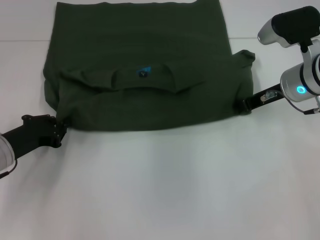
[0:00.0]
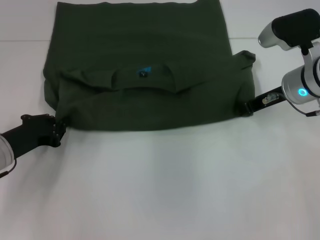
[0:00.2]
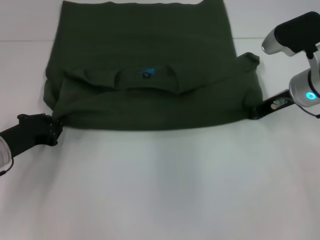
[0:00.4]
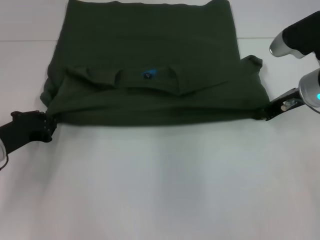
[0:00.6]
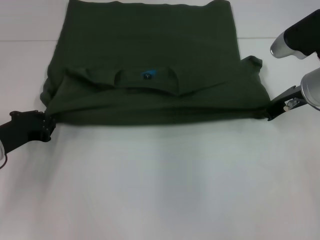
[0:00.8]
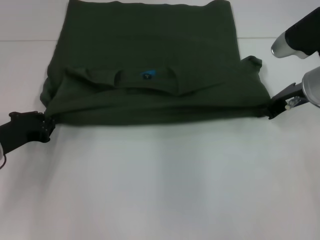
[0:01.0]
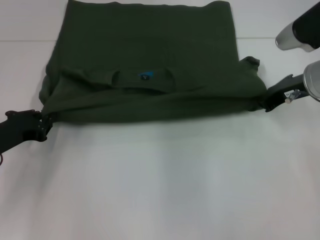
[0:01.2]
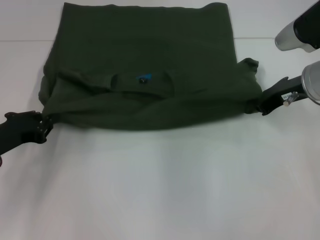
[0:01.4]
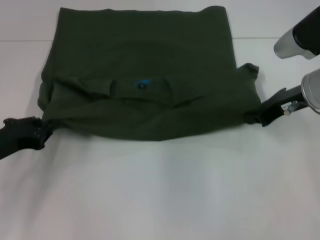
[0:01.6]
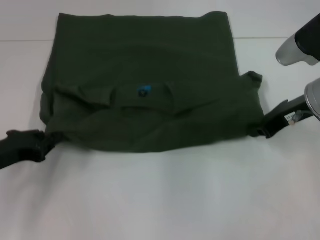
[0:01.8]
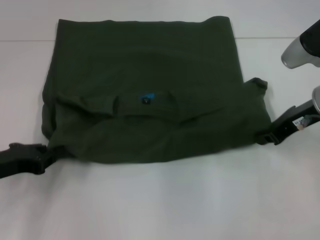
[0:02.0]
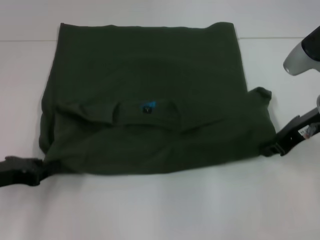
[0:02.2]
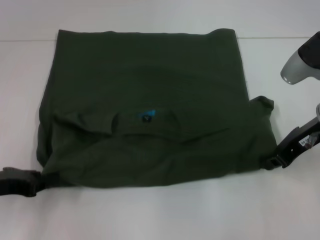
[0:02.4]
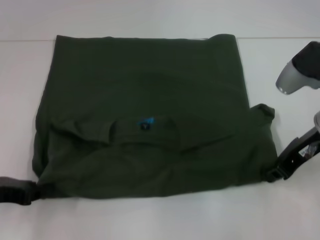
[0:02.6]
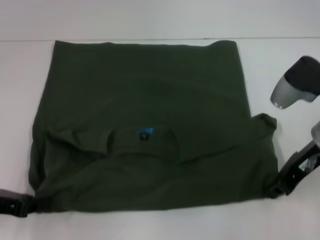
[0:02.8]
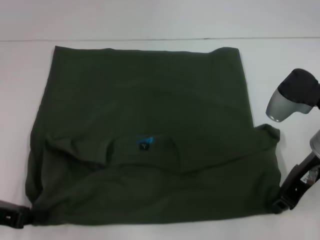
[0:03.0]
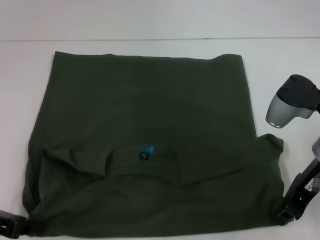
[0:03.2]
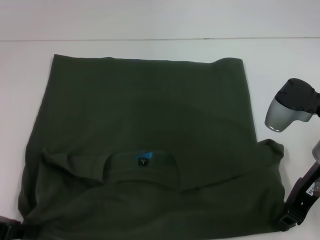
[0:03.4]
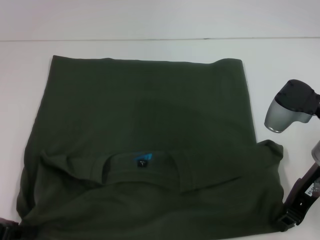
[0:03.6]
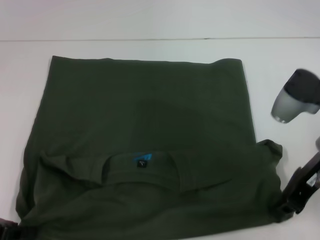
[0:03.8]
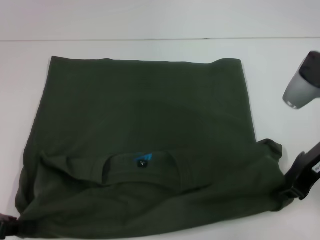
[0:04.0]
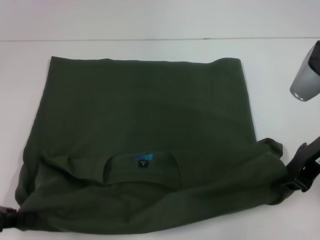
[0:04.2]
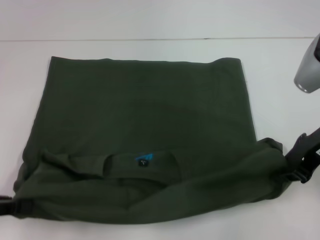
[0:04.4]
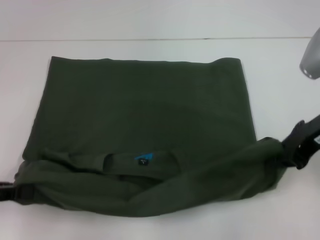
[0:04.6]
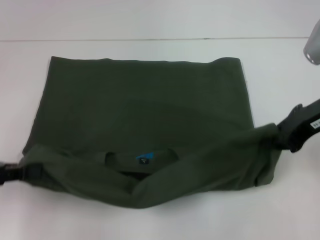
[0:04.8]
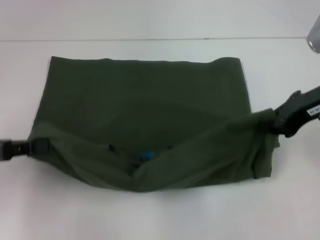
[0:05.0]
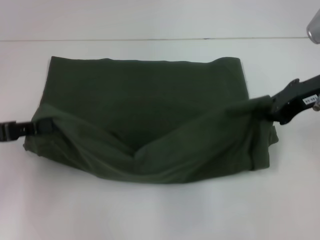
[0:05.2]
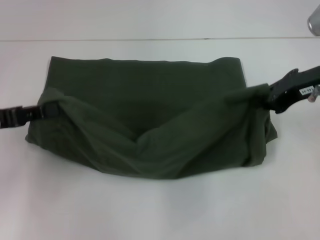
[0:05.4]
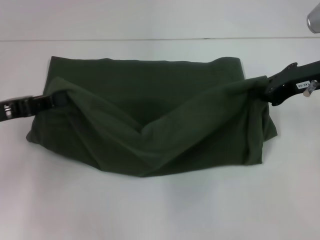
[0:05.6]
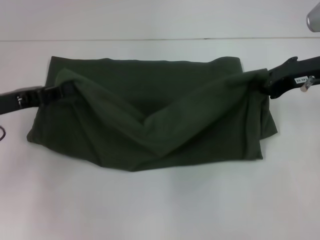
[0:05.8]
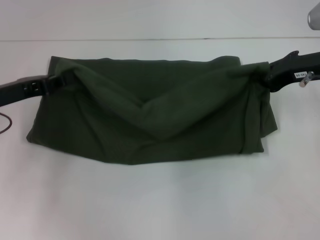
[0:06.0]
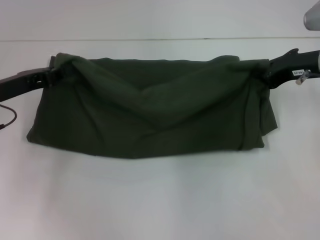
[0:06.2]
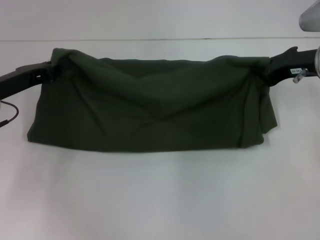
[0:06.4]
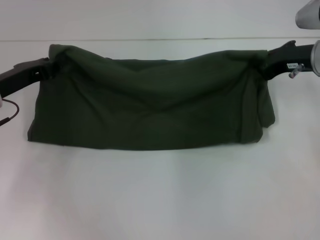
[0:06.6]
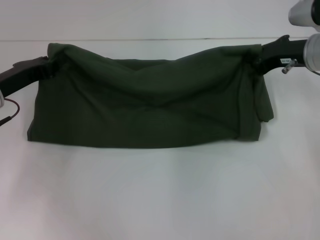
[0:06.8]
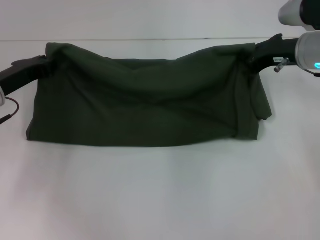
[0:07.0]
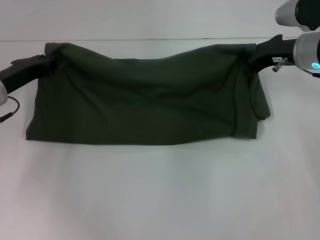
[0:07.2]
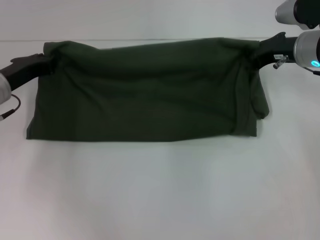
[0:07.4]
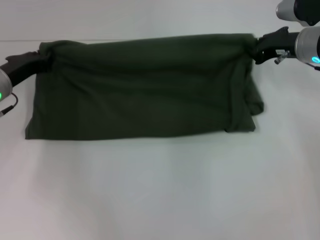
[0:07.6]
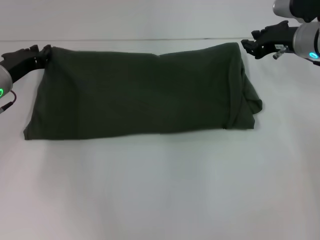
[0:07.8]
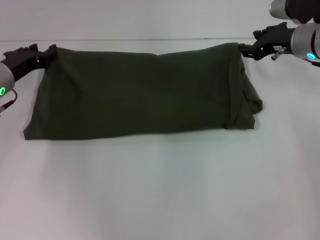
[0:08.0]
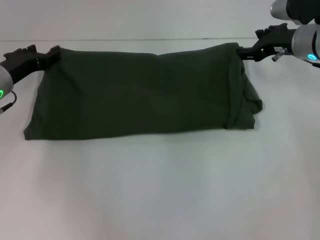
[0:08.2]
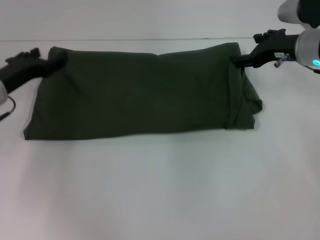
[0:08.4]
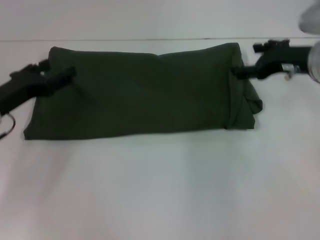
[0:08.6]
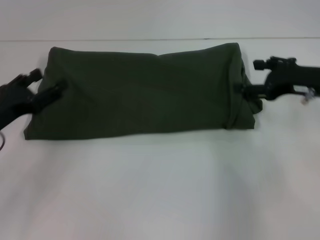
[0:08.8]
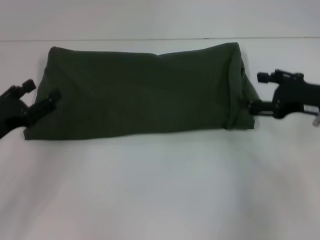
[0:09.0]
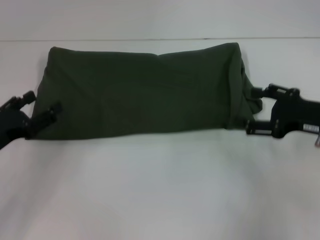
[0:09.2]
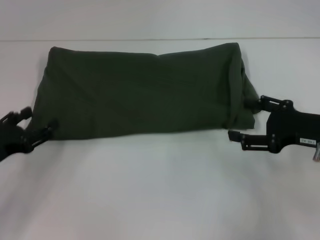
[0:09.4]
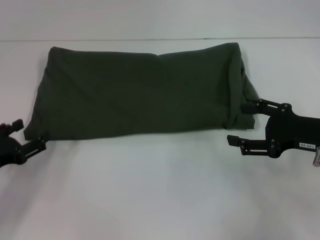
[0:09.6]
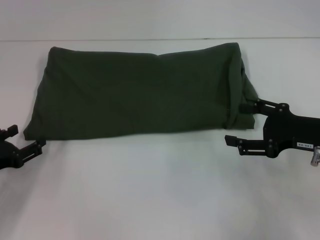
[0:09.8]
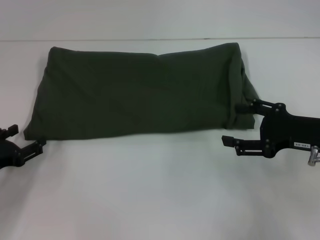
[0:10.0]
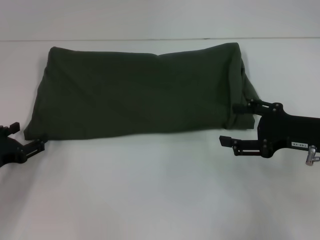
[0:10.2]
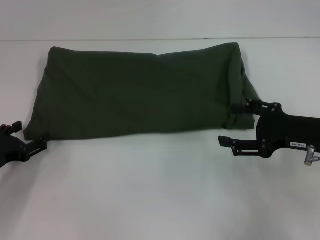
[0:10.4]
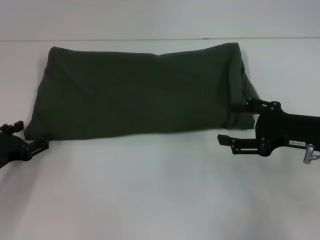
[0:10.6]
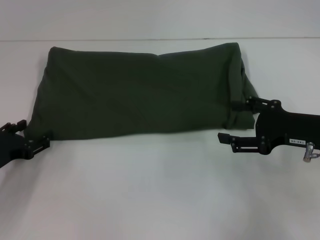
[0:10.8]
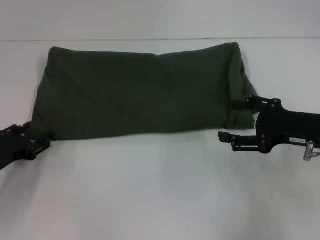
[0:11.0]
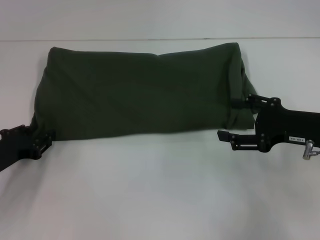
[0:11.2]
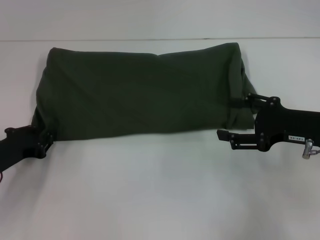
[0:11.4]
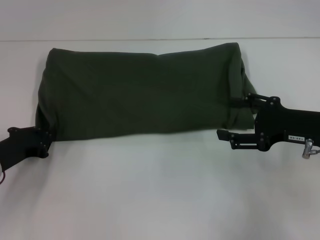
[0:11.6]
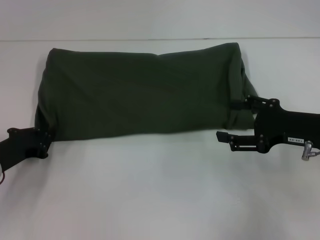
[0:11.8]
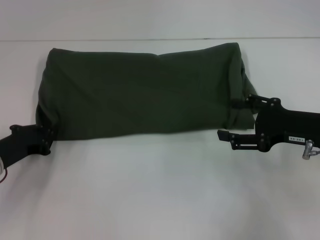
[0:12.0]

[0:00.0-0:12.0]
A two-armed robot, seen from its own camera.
Step, 0:00.0 to 0:03.4: Pull the clothes with your left hand.
Step, 0:00.0 to 0:03.4: Pull the clothes with your right hand.
Step, 0:03.6 to 0:08.0: Fold the clothes with your right hand.
0:00.0 to 0:01.6: The grippers move only a little.
0:01.6 to 0:03.0: The left gripper moves some 5 cm. The right gripper heads backward, covering some 5 cm.
0:03.0 to 0:04.4: Both grippers travel together upward, some 5 cm.
0:04.4 to 0:06.0: The right gripper heads forward, covering some 5 cm. Meanwhile the left gripper travels forward by roughly 10 cm.
0:06.0 to 0:07.6: Both grippers move forward, about 5 cm.
0:07.6 to 0:09.0: Both grippers move backward, roughly 10 cm. The right gripper opens up, while the left gripper opens up.
0:10.4 to 0:12.0: The left gripper closes.

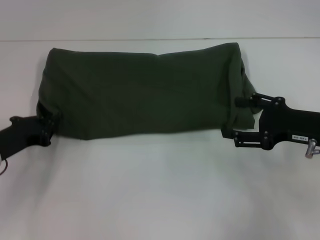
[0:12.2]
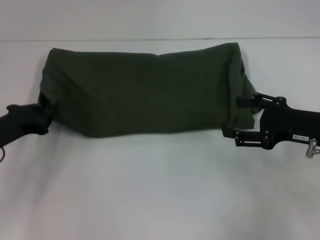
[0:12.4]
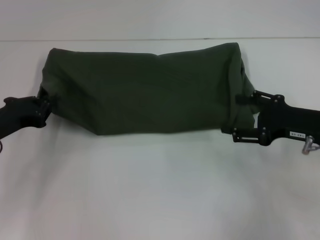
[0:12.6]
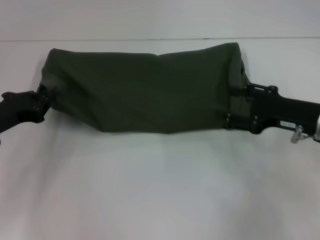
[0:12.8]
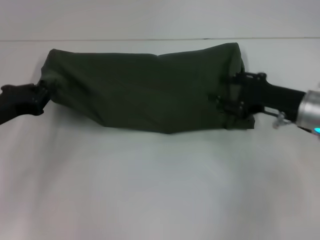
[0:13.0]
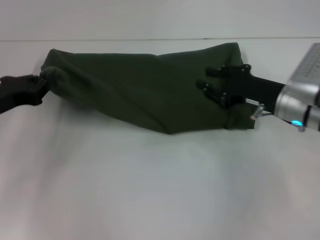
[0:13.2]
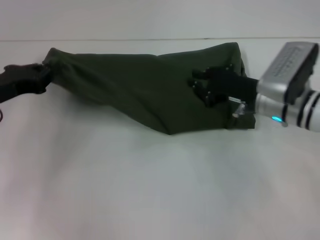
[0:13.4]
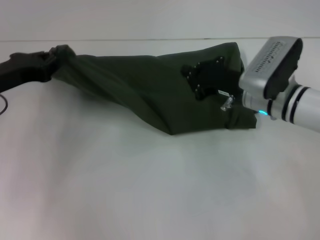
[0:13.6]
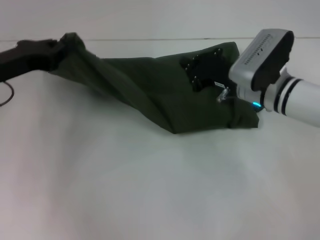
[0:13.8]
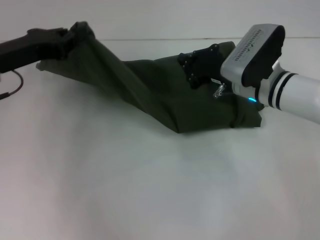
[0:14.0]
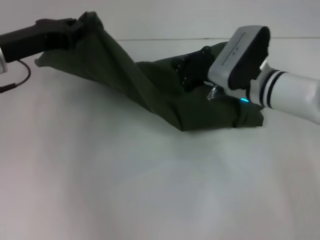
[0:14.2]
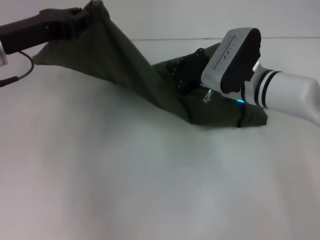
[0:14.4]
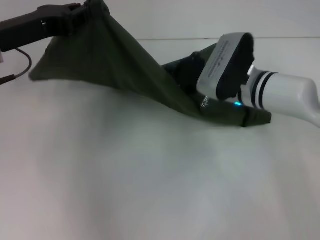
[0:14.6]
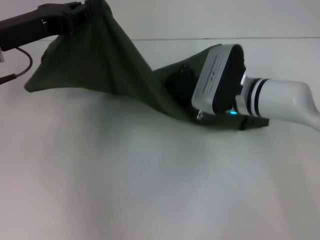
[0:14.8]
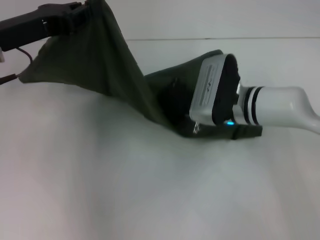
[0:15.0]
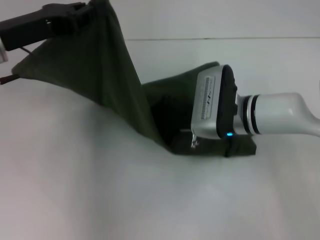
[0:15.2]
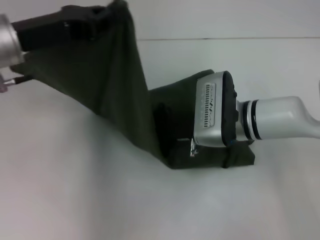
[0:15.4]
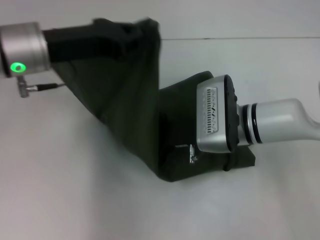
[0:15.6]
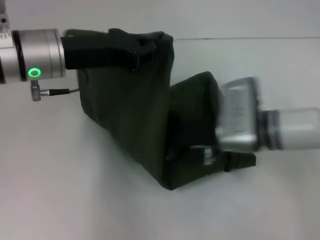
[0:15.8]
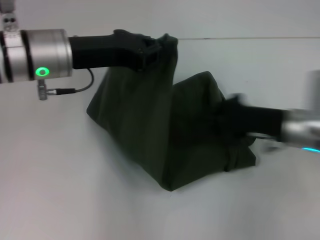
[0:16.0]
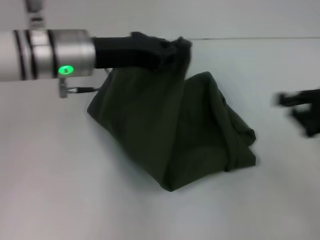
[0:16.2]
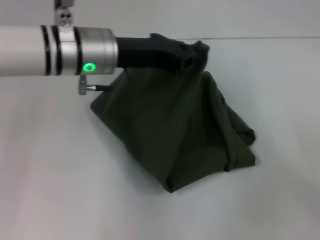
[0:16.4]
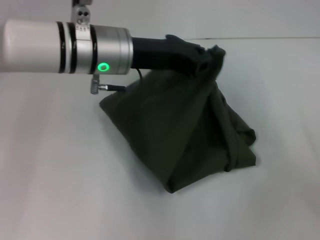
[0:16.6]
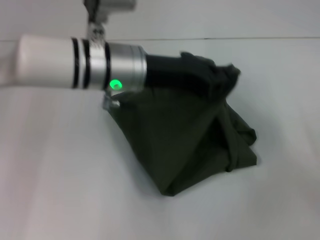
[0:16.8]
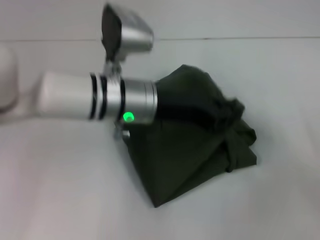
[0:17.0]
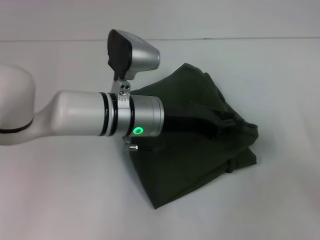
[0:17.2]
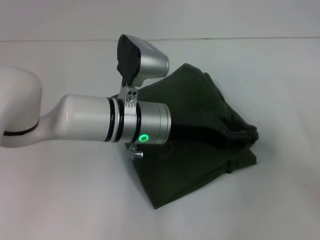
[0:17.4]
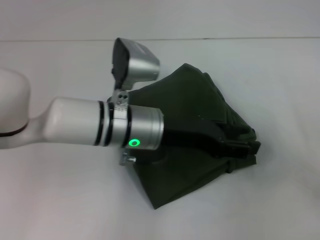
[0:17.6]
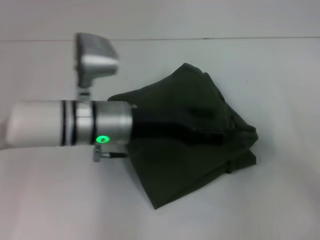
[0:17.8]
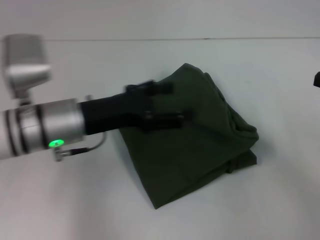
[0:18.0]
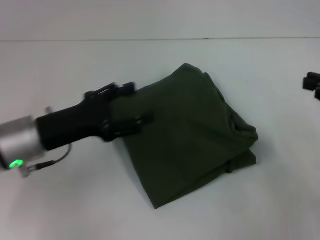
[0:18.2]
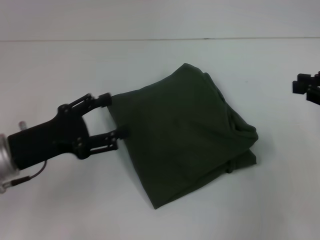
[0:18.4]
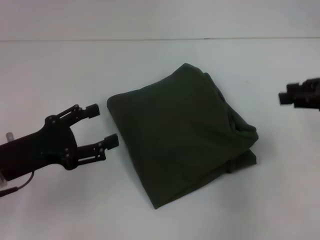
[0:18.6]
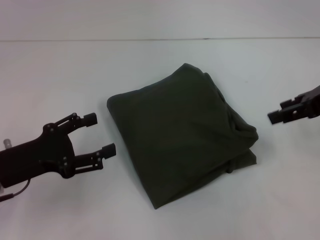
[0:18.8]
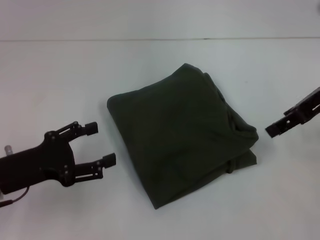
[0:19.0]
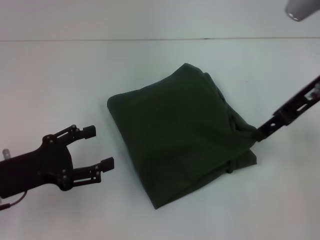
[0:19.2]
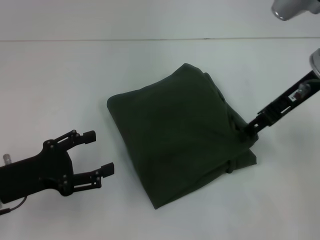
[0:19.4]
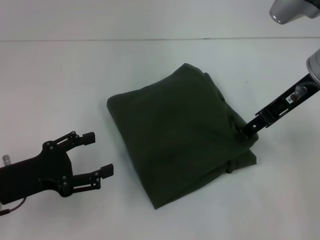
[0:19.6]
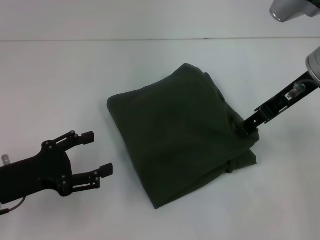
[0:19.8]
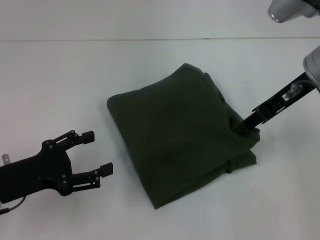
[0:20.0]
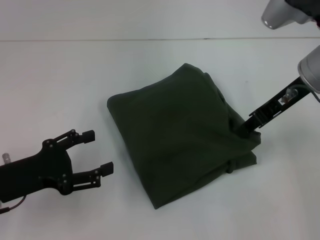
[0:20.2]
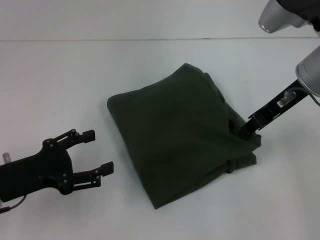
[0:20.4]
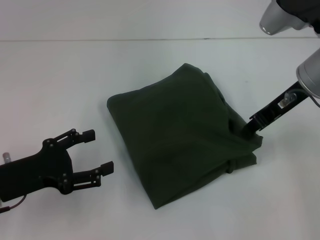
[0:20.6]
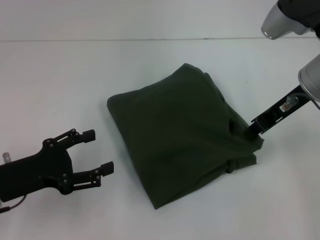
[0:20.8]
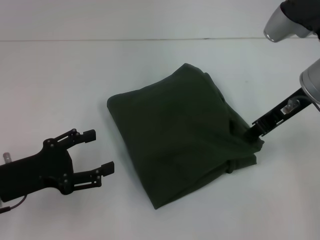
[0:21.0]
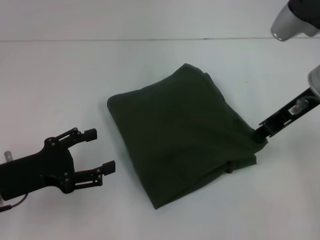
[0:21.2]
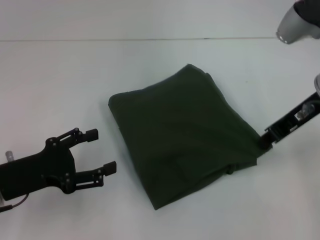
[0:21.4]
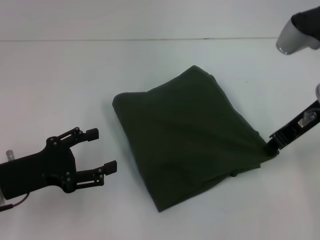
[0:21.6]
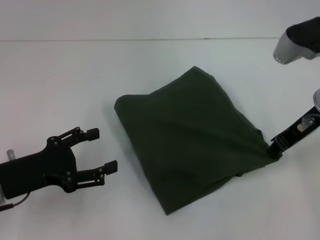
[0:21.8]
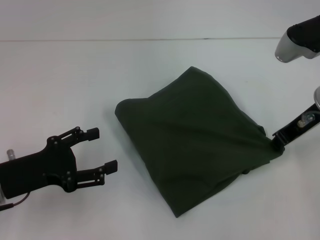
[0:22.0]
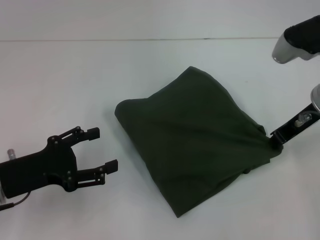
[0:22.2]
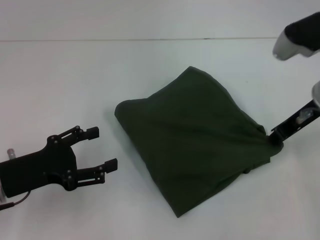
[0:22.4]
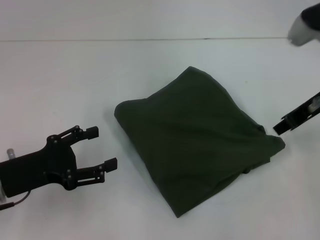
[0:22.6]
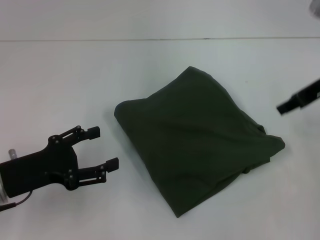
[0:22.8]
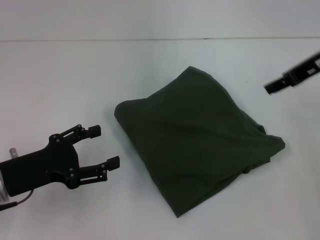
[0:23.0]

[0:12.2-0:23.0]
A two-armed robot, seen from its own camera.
Step, 0:12.2 to 0:17.4: Fold the clothes with your left hand.
0:12.2 to 0:13.8: The right gripper shifts roughly 15 cm to the left and forward, and closes up. Meanwhile the left gripper heads upward and forward, covering approximately 10 cm.
0:13.8 to 0:15.2: The left gripper shifts by approximately 5 cm; the right gripper goes some 5 cm to the left.
0:15.2 to 0:16.8: The right gripper goes roughly 30 cm to the right and backward. Meanwhile the left gripper goes approximately 15 cm to the right.
0:16.8 to 0:18.4: The right gripper travels upward, forward and to the left by about 10 cm. The left gripper heads to the left, backward and downward, covering about 20 cm, and opens up.
0:18.4 to 0:20.0: The right gripper is displaced to the left and forward by roughly 15 cm, and opens its fingers.
0:20.0 to 0:21.4: The right gripper closes.
0:21.4 to 0:23.0: The right gripper moves roughly 5 cm, and opens.
